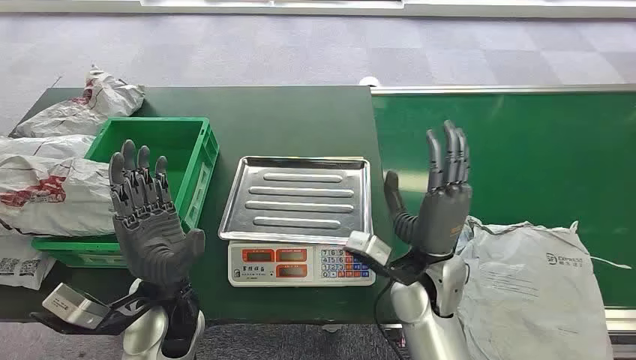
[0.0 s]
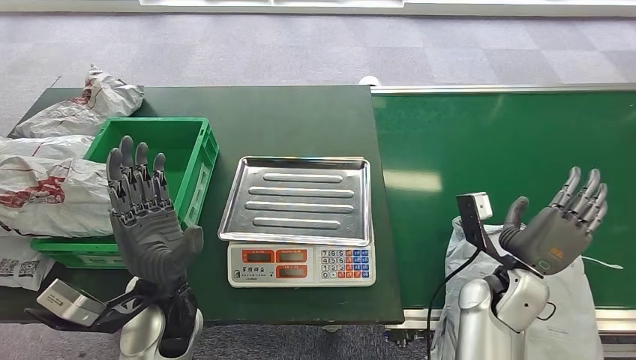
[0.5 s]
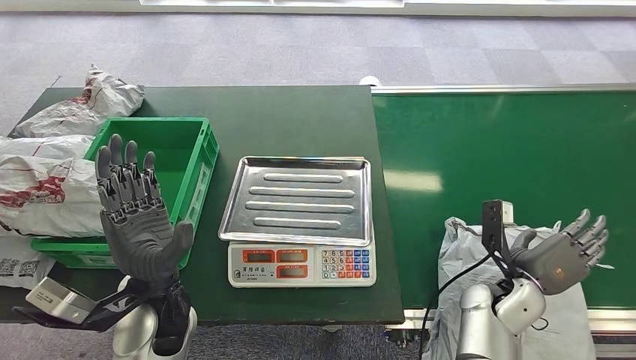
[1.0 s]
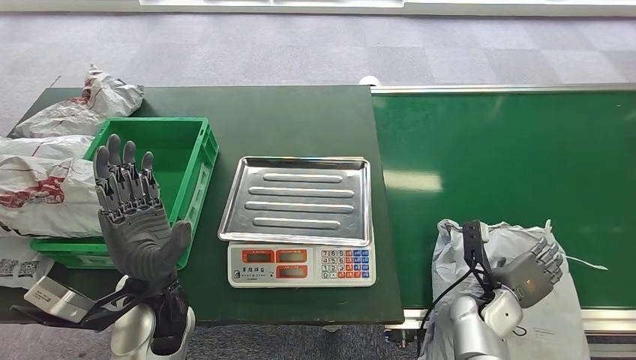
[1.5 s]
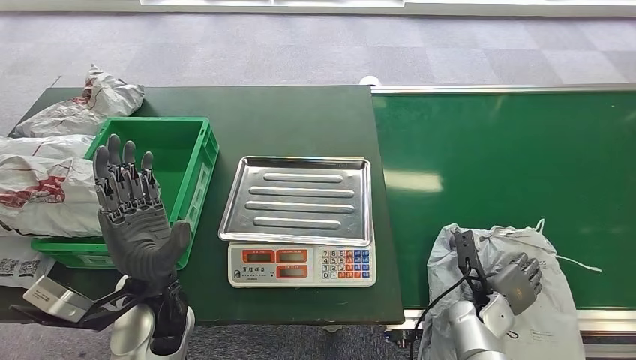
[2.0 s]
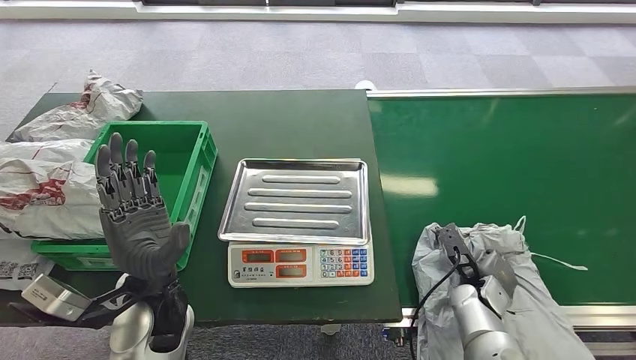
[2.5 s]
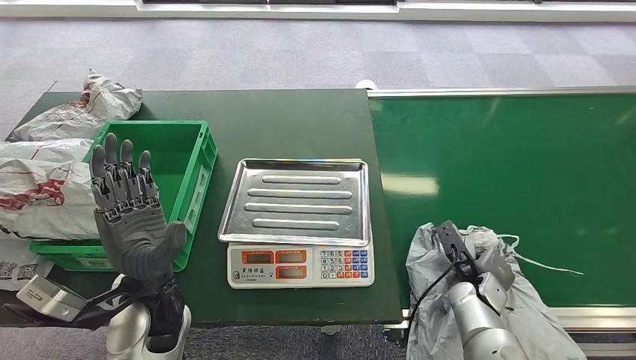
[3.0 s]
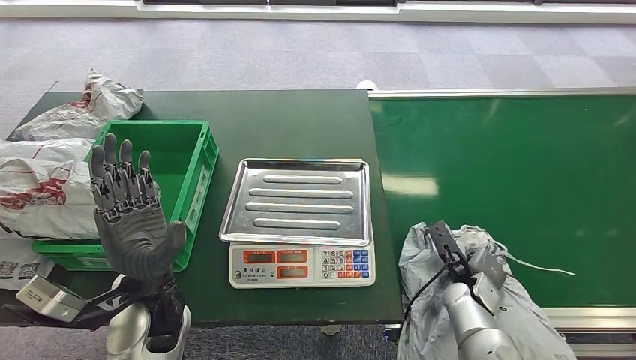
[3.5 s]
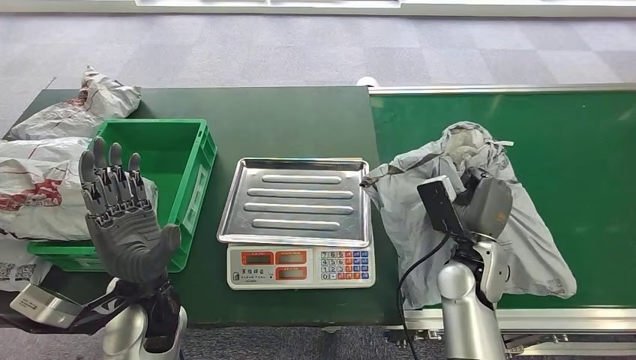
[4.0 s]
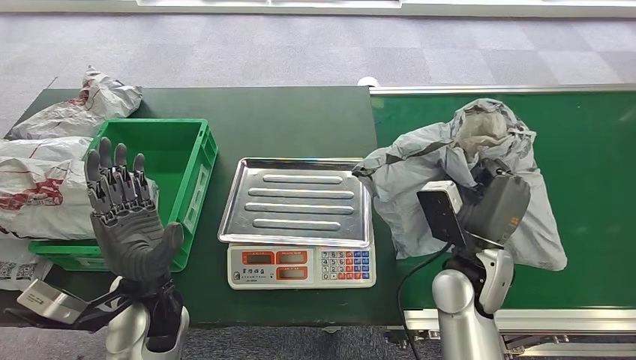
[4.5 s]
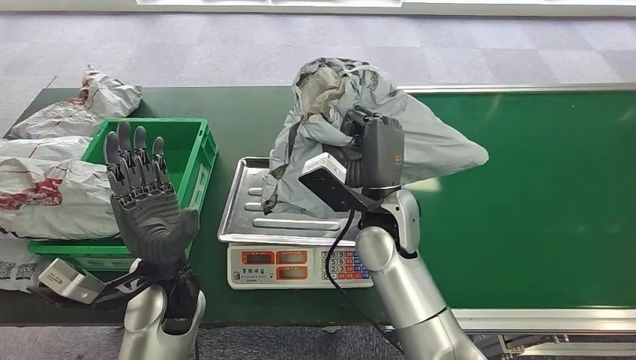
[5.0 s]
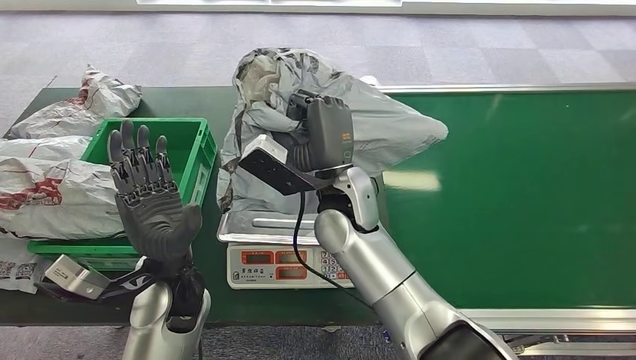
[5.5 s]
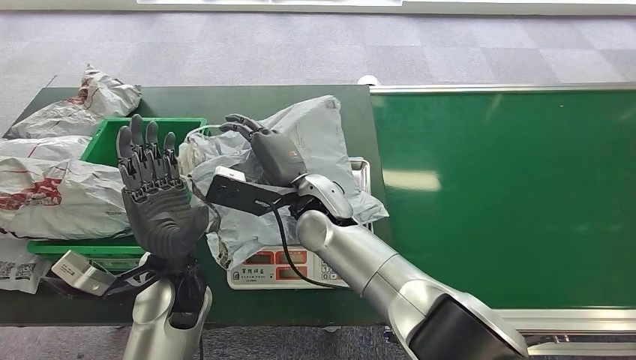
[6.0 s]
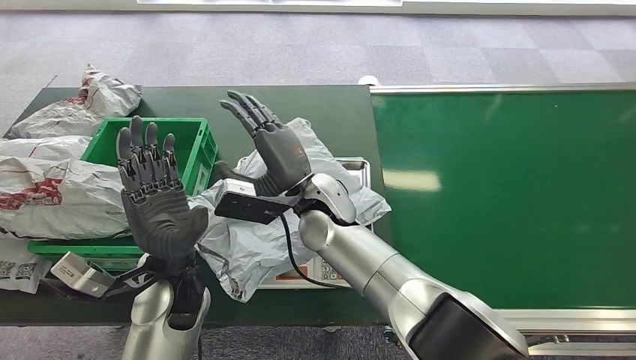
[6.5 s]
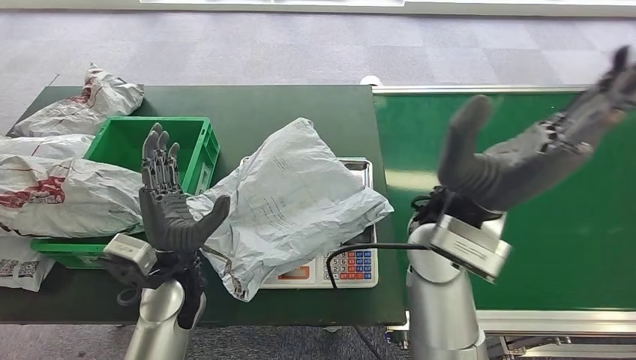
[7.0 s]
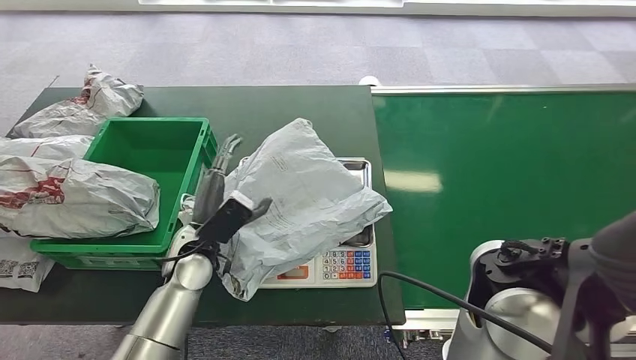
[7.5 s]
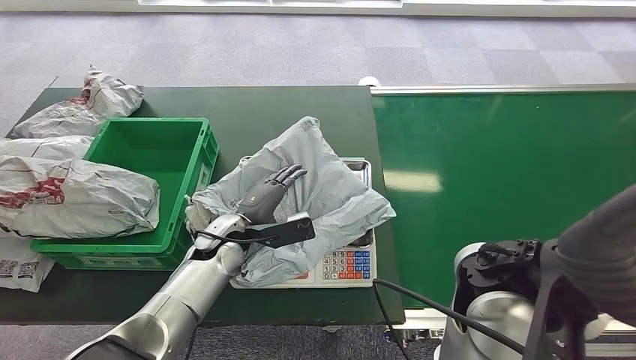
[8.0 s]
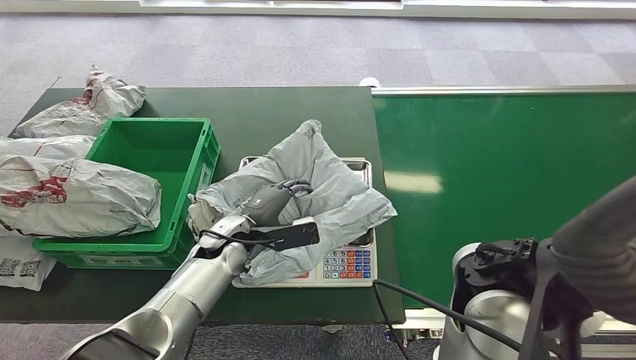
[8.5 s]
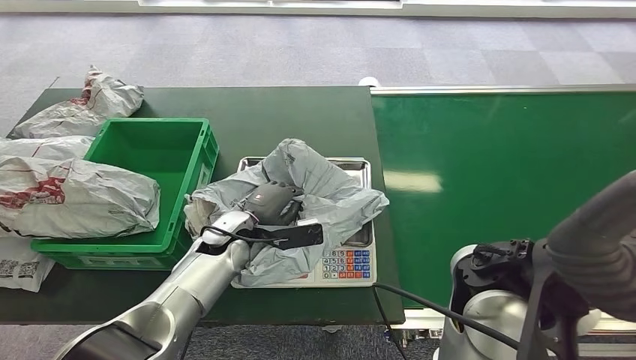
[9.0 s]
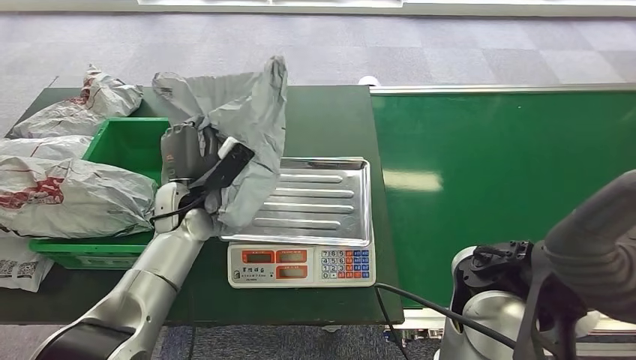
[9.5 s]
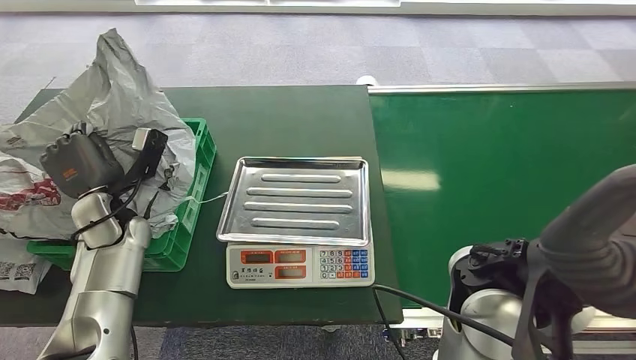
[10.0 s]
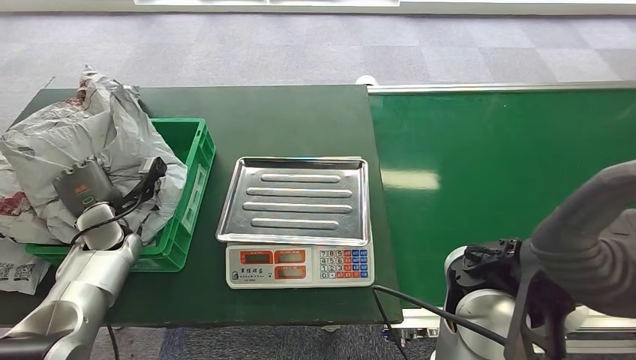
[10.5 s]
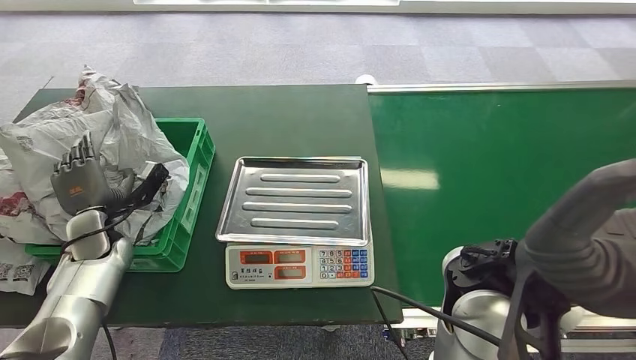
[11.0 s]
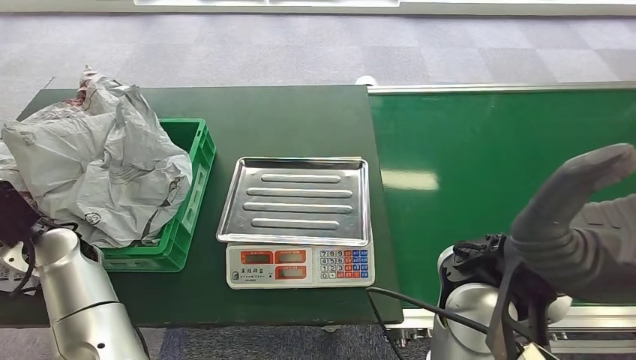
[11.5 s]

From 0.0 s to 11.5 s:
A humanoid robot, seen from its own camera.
Step, from 0.0 s to 4.0 s: Pick up the package from the conveyor belt.
Step, from 4.5 s to 6.5 s: Place the package onto the inbound machine.
Step, from 7.0 s to 9.5 s: Pick up the package from the inbound machine.
Step, from 10.0 s to 11.5 s: Place the package into the parcel locker.
